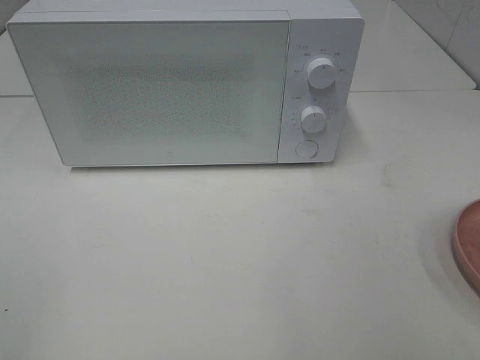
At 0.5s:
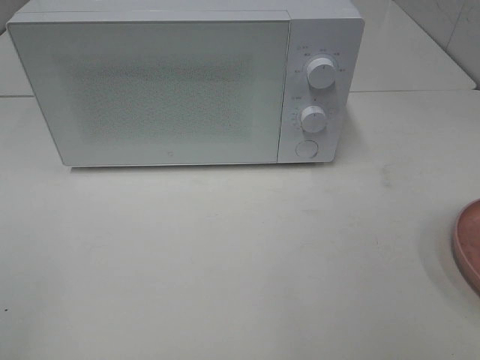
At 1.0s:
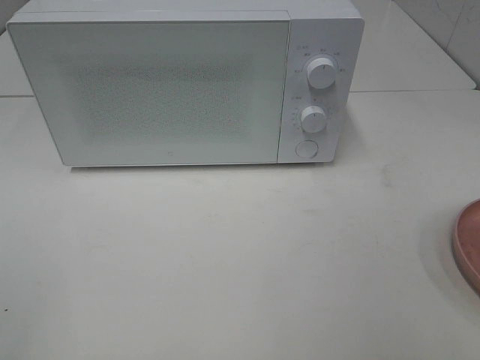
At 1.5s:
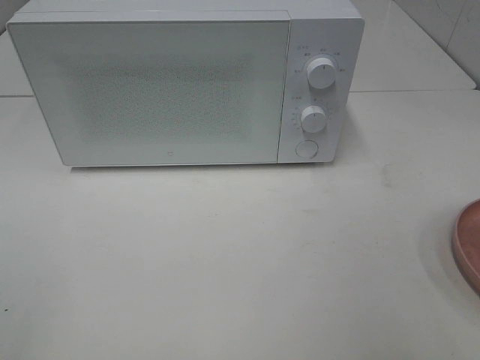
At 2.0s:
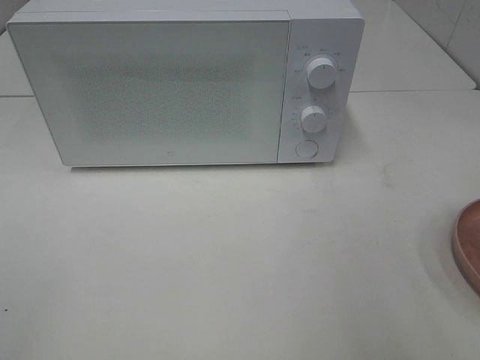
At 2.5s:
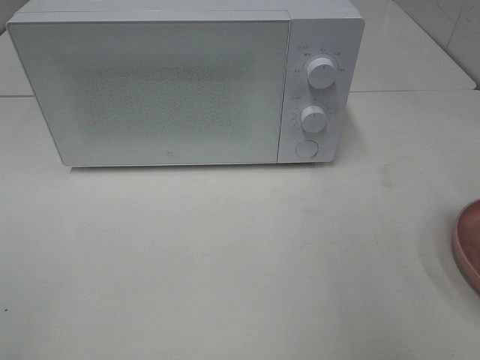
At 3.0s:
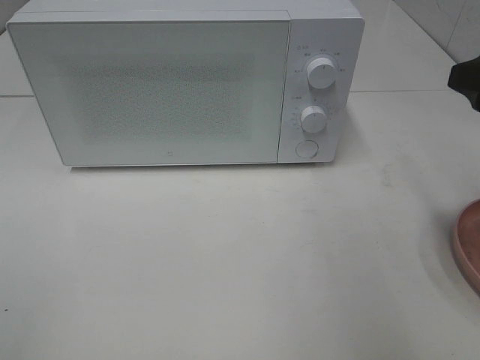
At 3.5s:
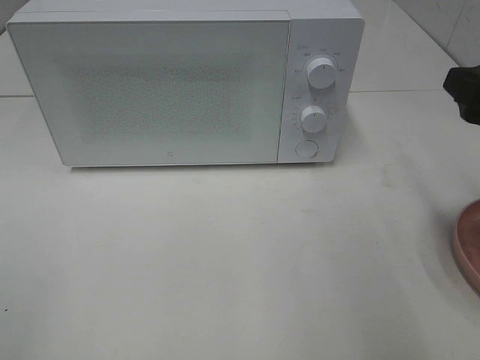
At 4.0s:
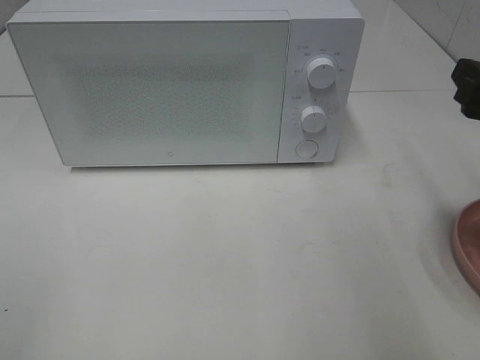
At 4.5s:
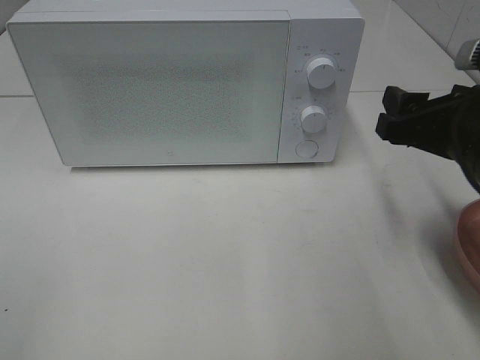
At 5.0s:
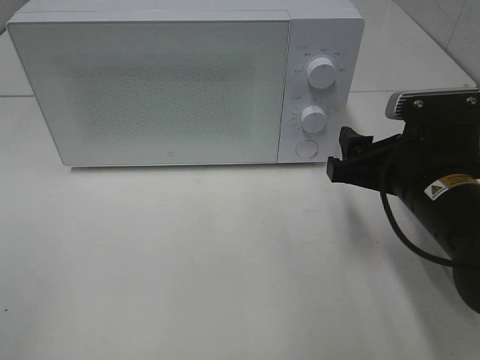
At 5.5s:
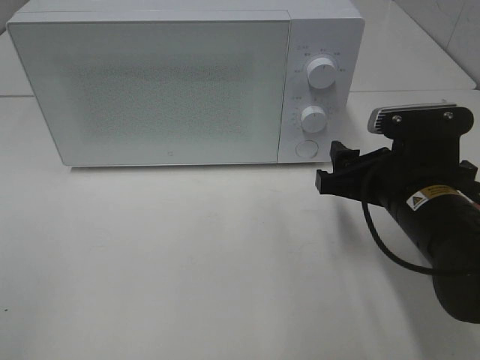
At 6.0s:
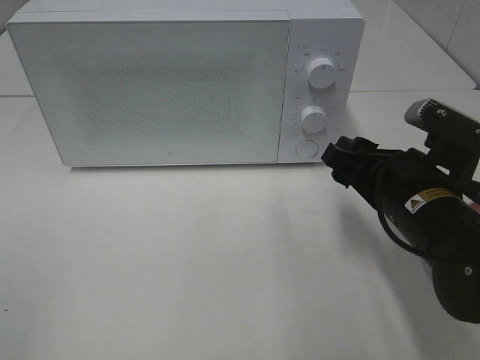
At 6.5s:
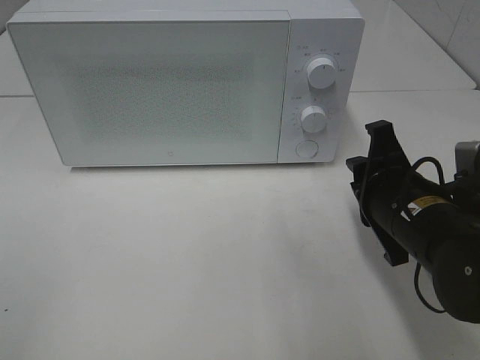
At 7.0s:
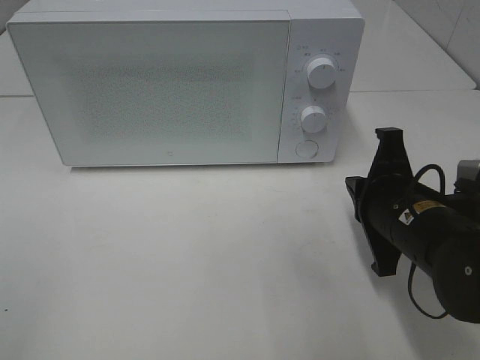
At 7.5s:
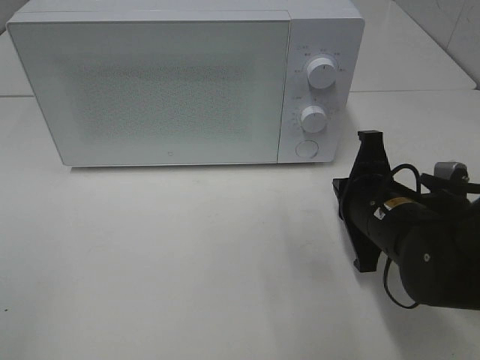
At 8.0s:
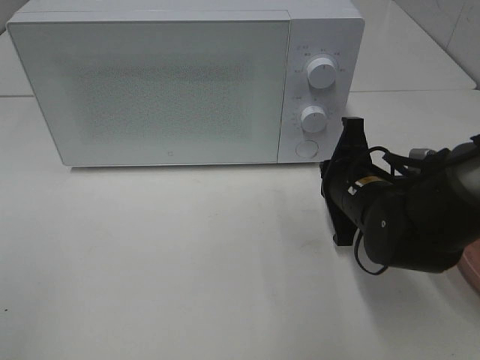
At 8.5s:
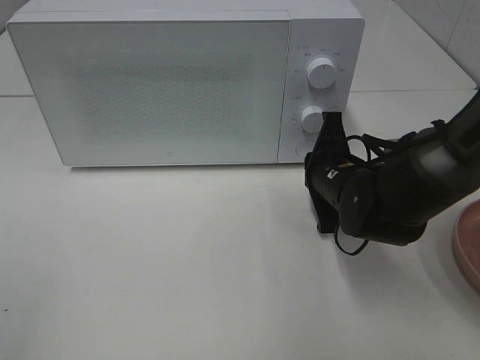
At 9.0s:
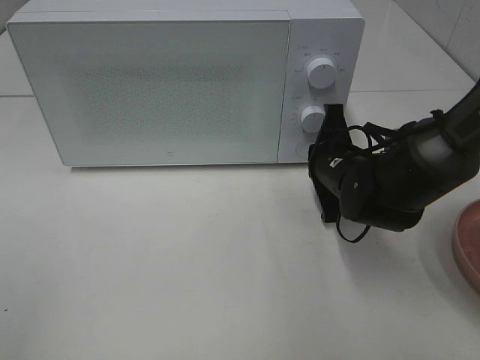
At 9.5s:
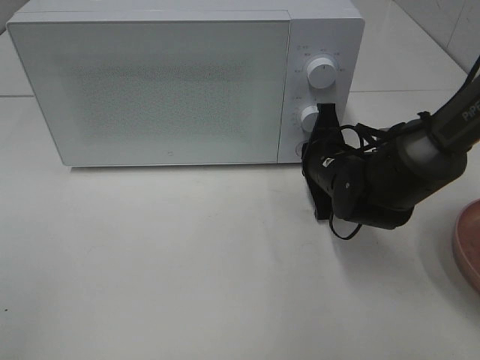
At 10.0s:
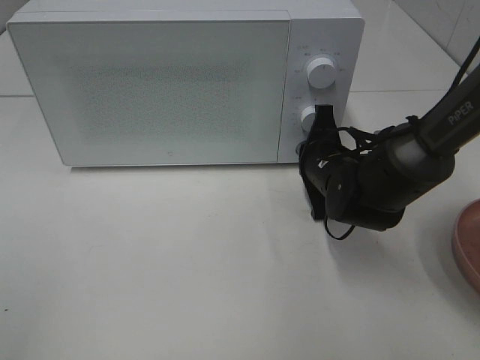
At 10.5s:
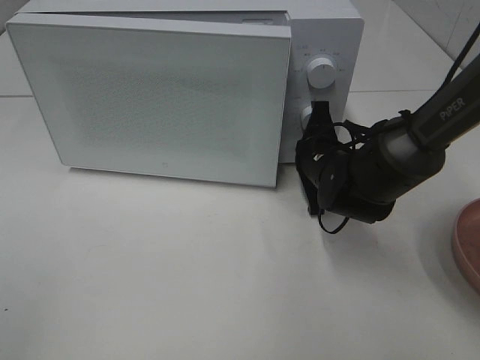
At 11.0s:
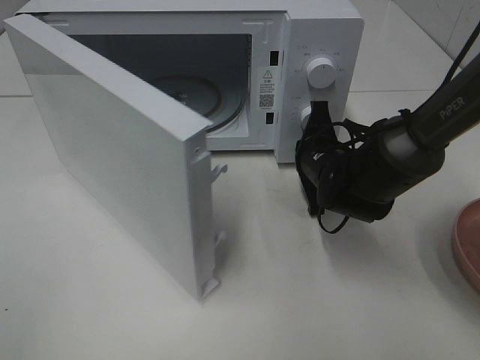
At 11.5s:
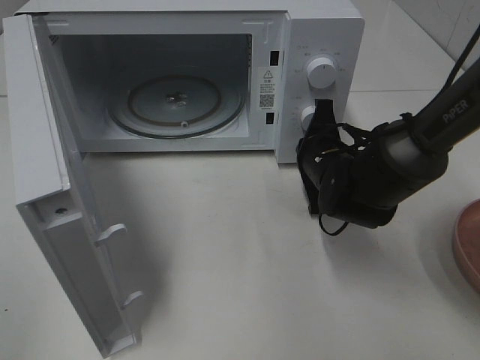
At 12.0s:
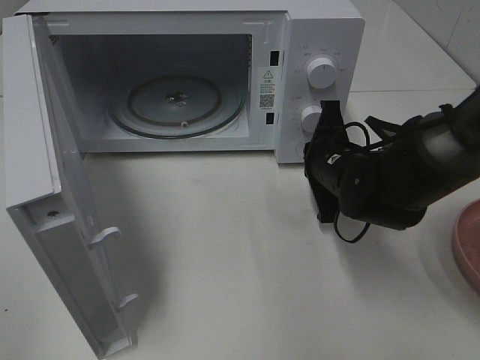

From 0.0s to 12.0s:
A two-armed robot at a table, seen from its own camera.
Task of the whole recording: Heat the burger.
From 2.0s to 4.0s: The right gripper goes some 10 cm forward and downward.
From 4.0s to 6.0s: The right gripper moves to the left and downward, some 15 cm.
From 6.0s to 8.0s: The right gripper shifts some 5 cm forward, and closes up.
From 8.0s to 10.0s: The right gripper moves forward, about 5 cm.

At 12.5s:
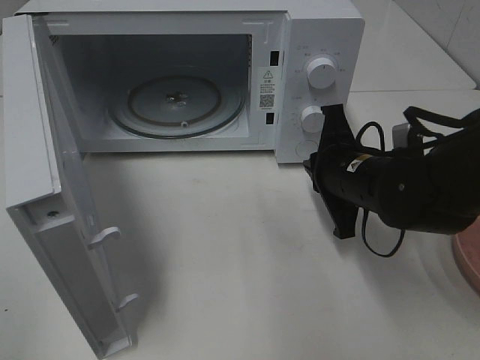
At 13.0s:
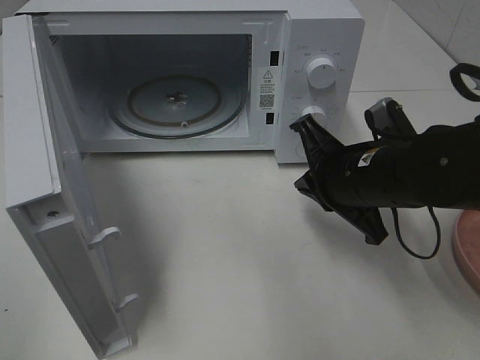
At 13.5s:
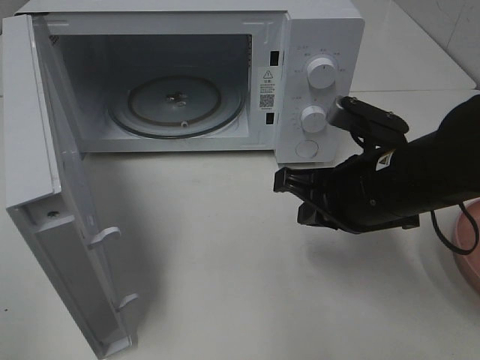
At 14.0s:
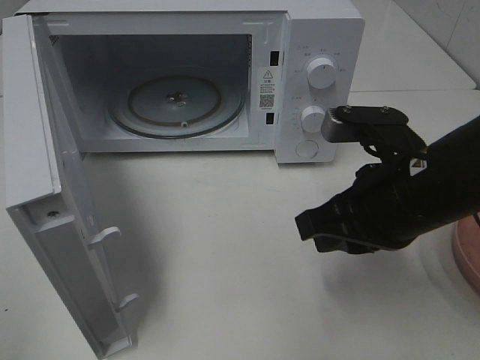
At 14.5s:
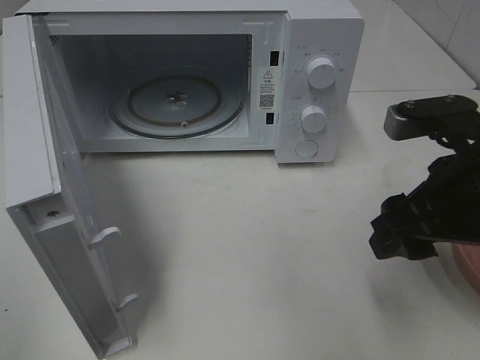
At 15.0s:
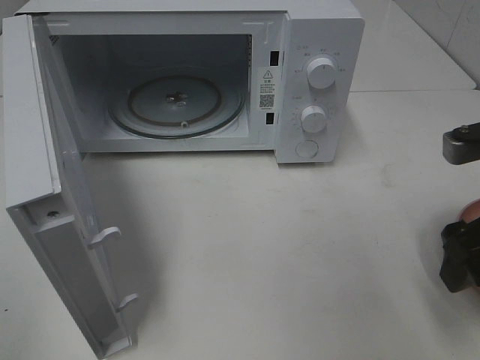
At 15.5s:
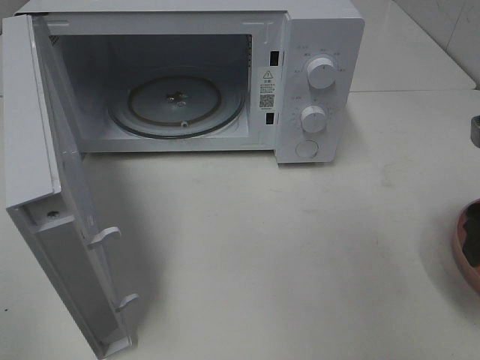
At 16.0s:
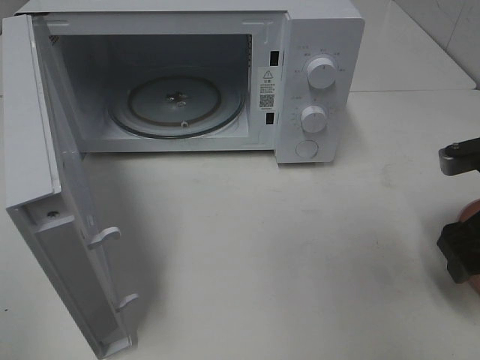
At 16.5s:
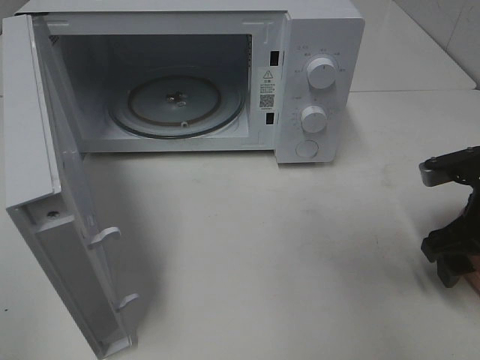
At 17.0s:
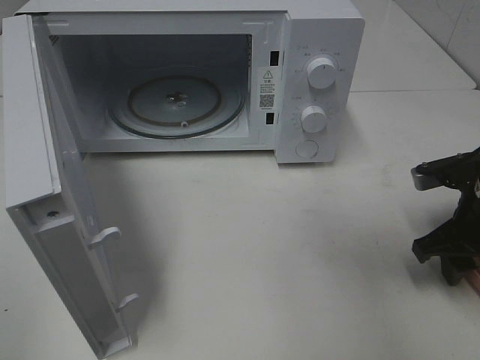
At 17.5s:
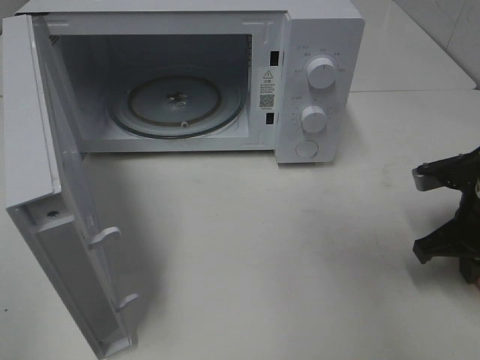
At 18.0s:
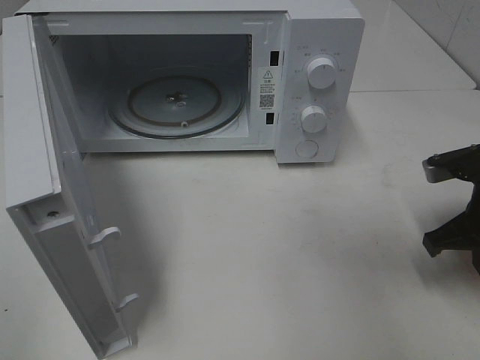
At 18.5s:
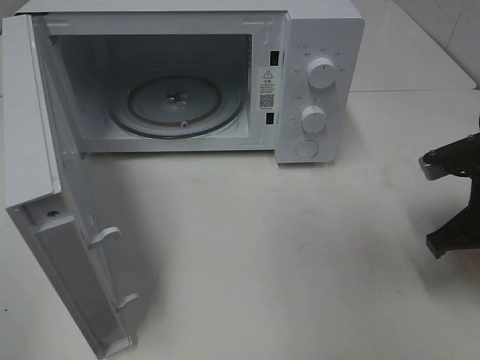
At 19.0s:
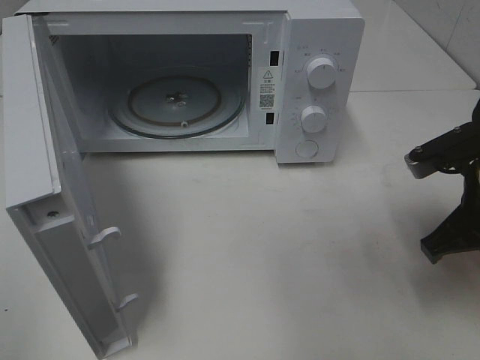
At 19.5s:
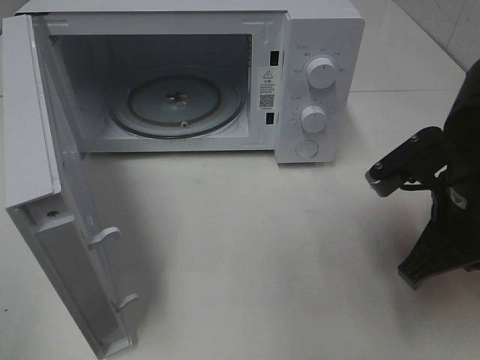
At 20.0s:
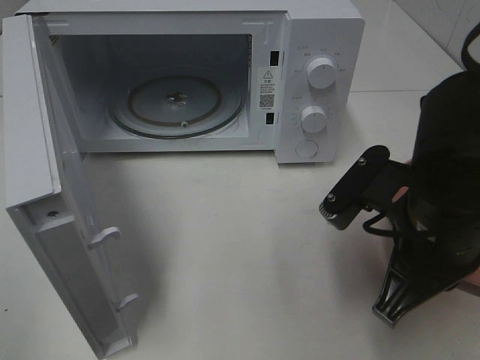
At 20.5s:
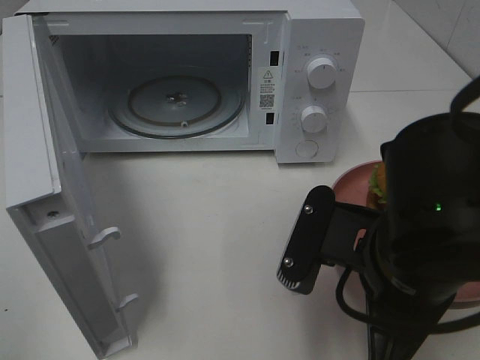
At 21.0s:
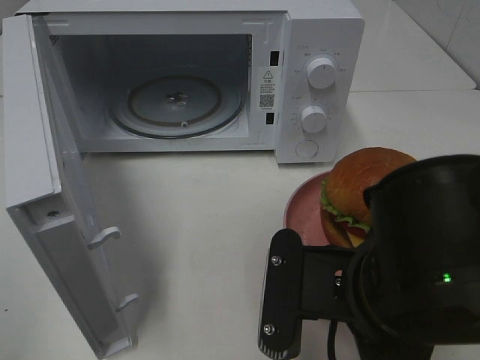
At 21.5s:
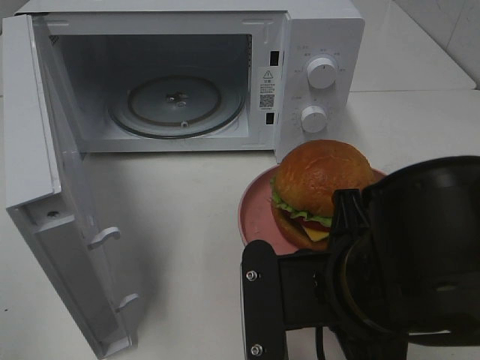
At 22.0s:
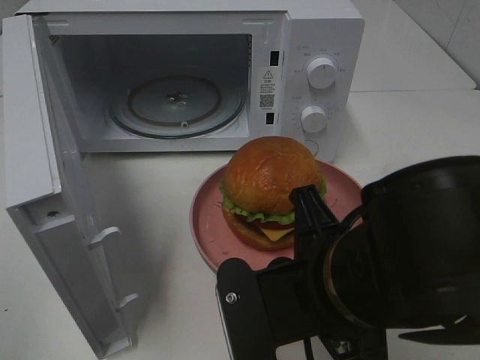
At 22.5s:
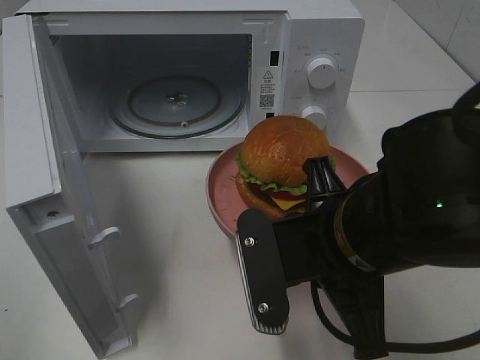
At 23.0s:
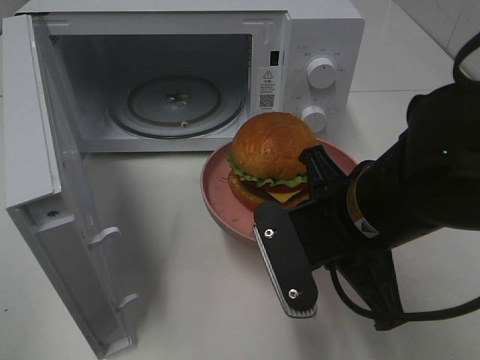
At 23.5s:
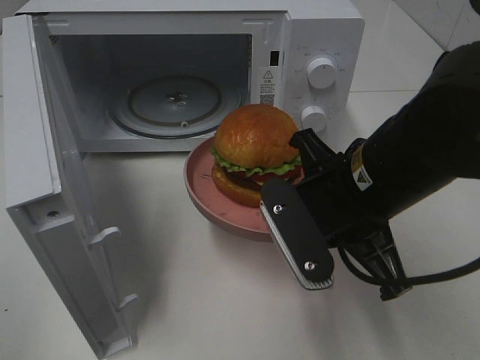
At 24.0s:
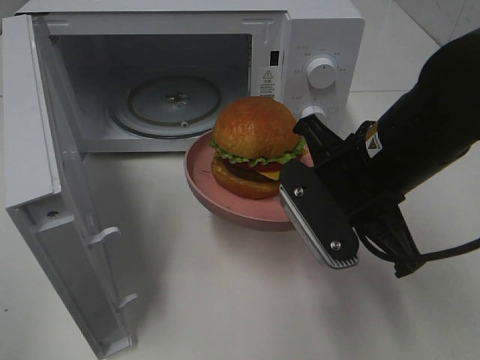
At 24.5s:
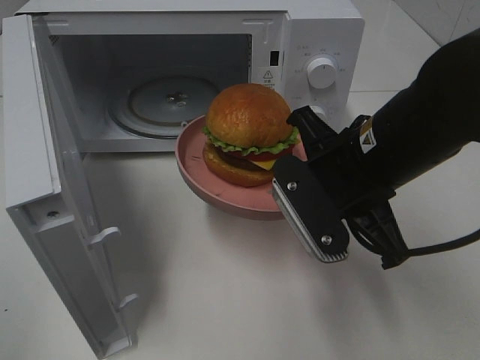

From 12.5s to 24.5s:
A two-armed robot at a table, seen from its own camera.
Task of the whole recording: Heat the burger.
Step, from 12.5s to 17.5s: Right hand: grab the plate with the hamburger.
From 12.5s to 14.5s: The right gripper moves backward, upward and to the right, roughly 15 cm, and opens up.
From 14.5s to 16.5s: The right gripper travels downward, to the right and forward by about 10 cm.
From 16.5s to 18.5s: The right gripper closes its fingers.
From 18.5s to 20.5s: The right gripper shifts some 20 cm to the left and backward.
From 22.5s to 24.5s: The right gripper moves forward, some 5 cm.

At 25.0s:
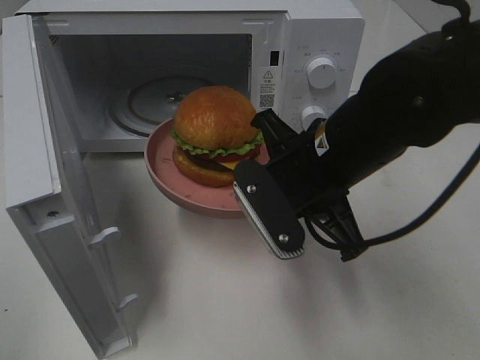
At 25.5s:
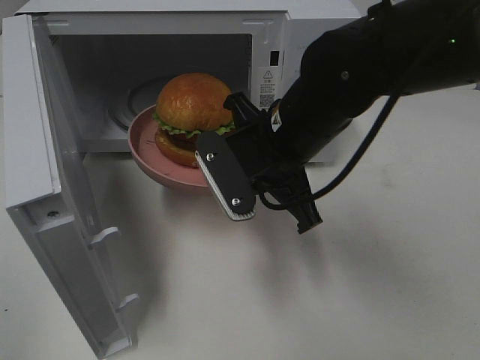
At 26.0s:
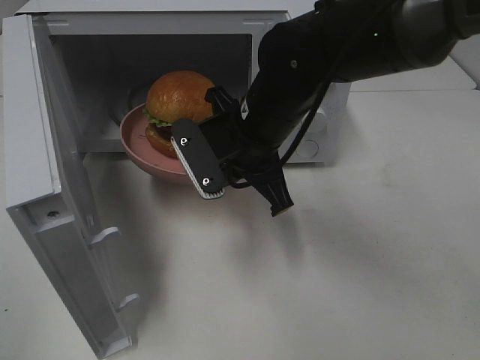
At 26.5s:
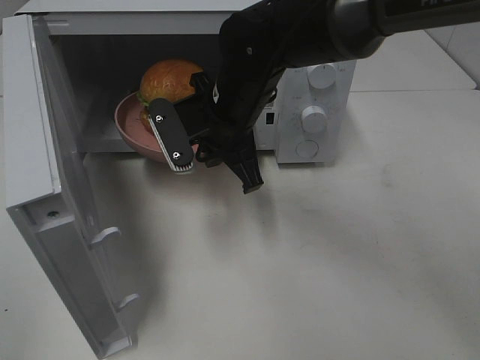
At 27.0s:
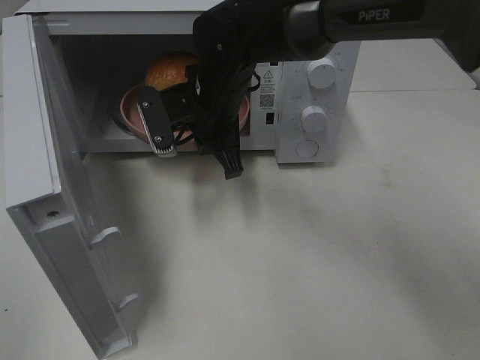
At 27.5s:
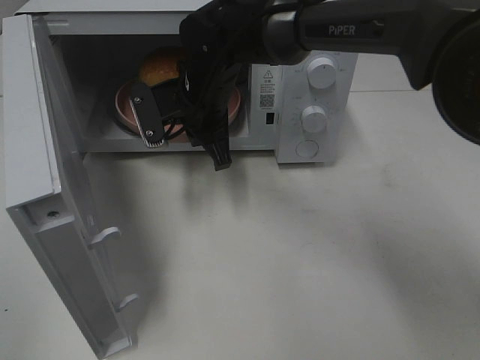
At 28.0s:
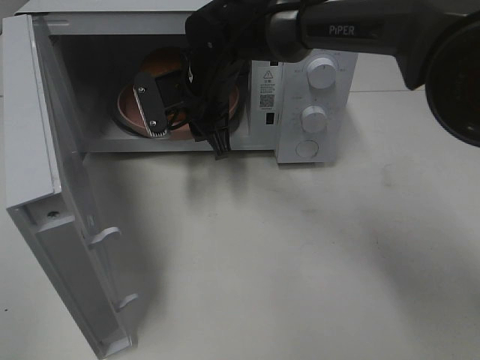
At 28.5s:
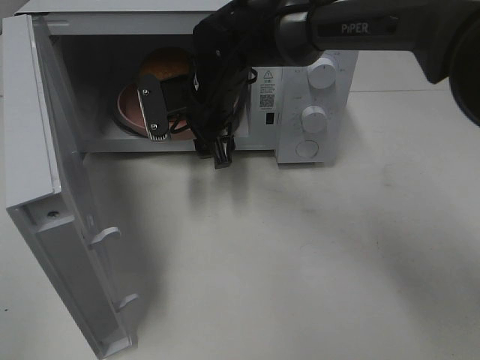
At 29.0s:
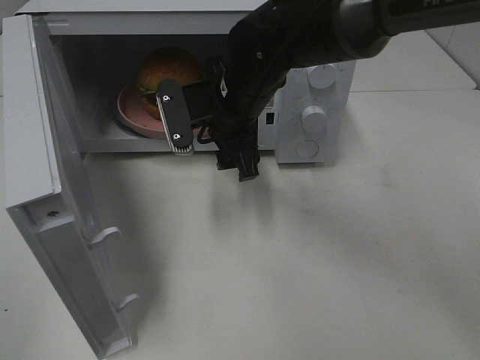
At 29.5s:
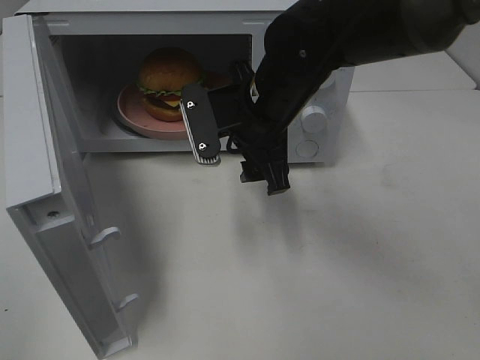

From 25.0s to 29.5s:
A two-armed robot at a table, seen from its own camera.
Task of the whole recording: Heat the burger.
Step, from 25.0s to 28.5s: Right hand: place the plate in the microwave.
From 25.0s to 27.0s: The right gripper is displaced forward and to the left by approximately 15 cm.
From 27.0s to 29.5s: The right gripper heads to the right and backward, covering some 10 cm, and opens up.
